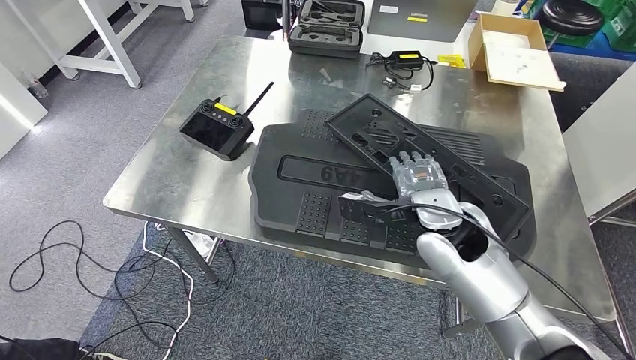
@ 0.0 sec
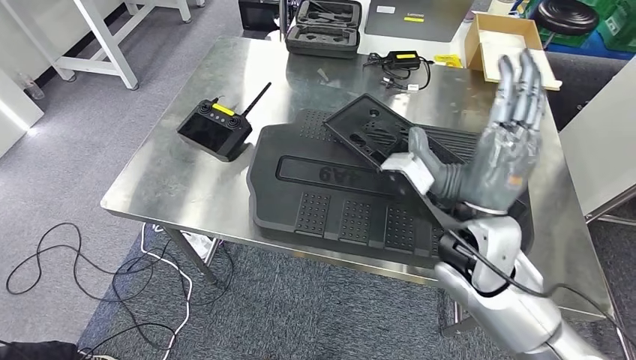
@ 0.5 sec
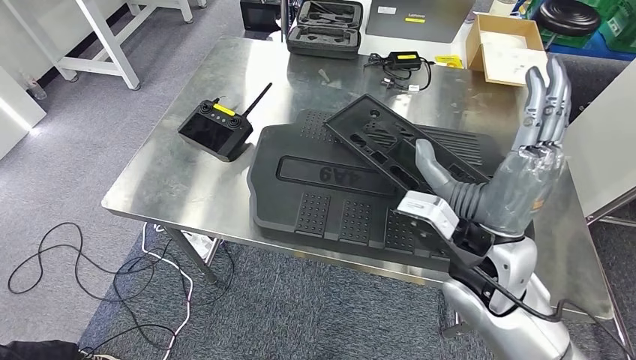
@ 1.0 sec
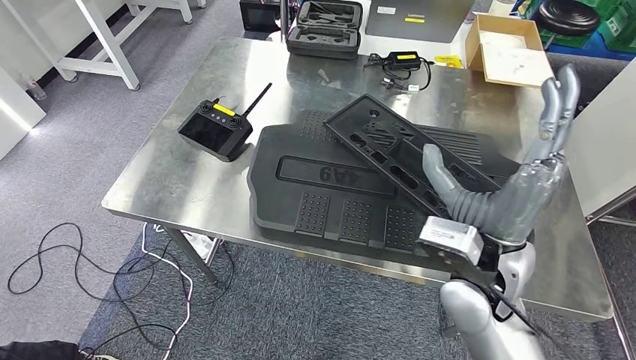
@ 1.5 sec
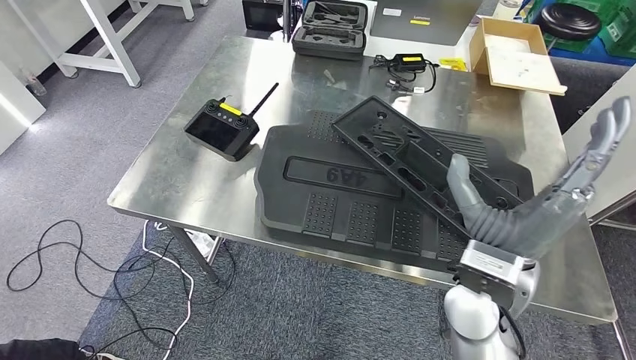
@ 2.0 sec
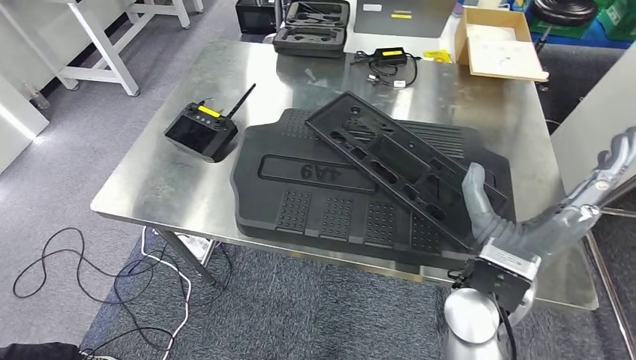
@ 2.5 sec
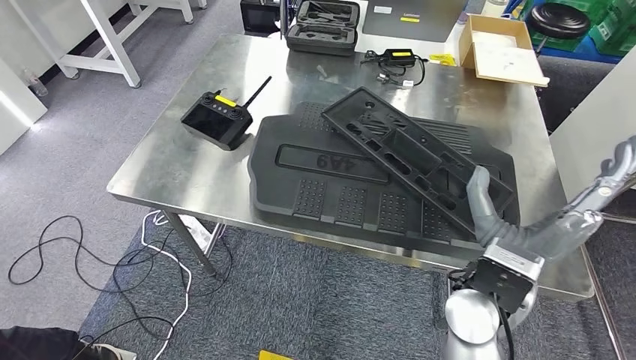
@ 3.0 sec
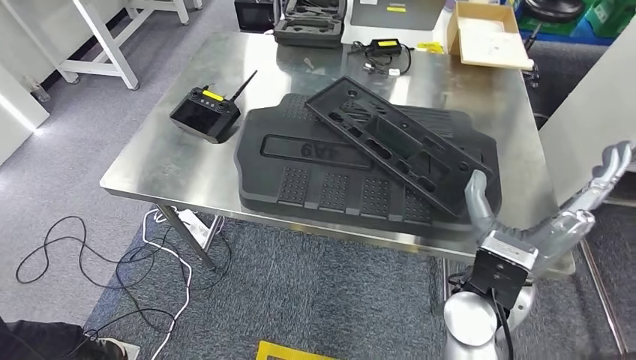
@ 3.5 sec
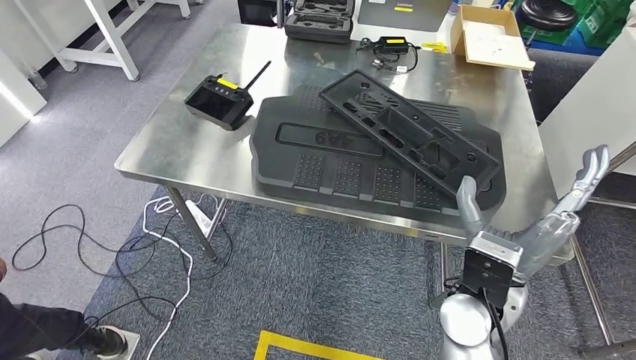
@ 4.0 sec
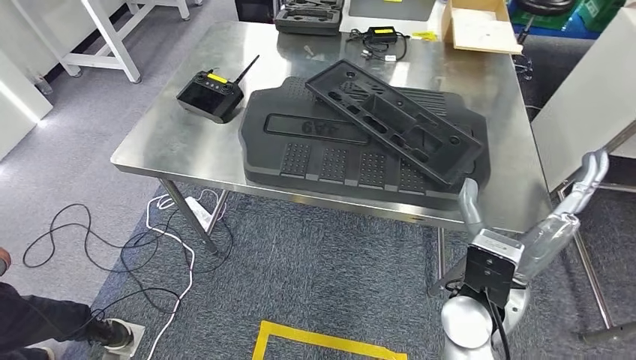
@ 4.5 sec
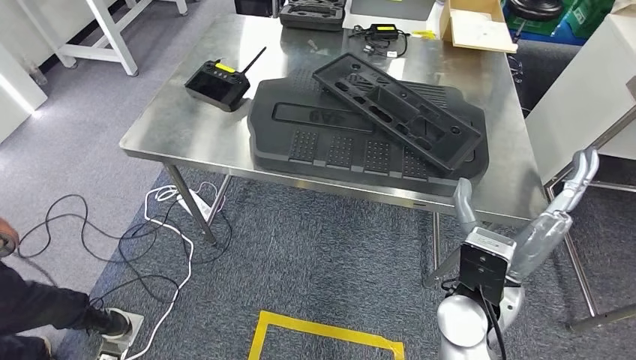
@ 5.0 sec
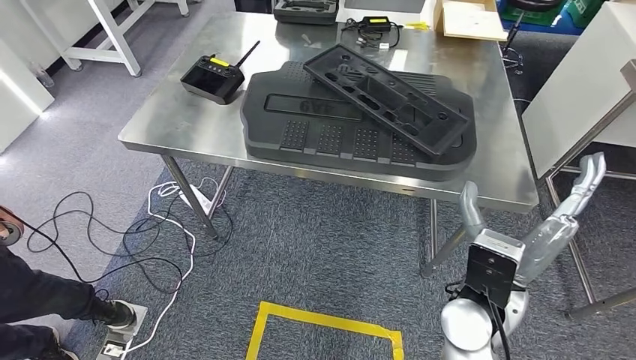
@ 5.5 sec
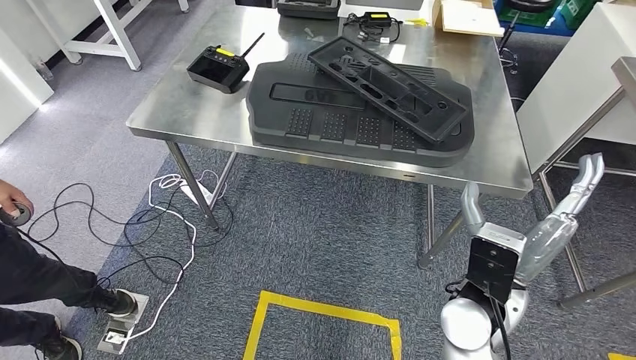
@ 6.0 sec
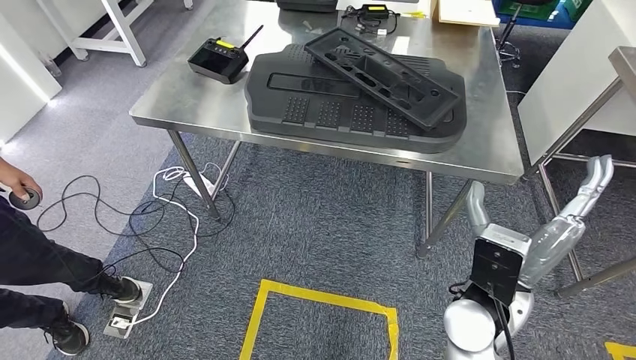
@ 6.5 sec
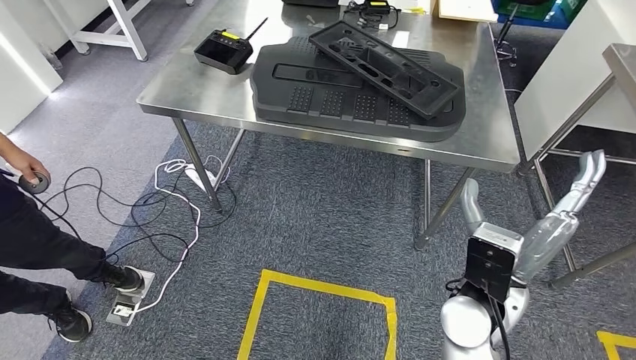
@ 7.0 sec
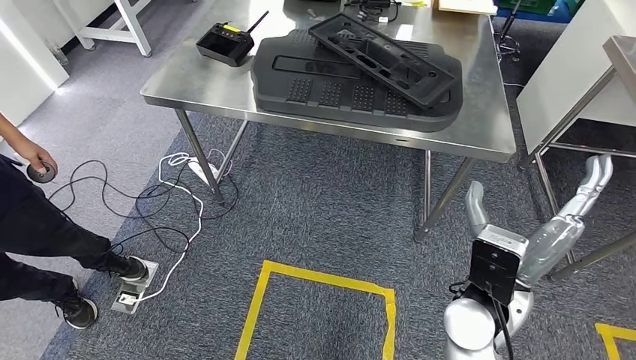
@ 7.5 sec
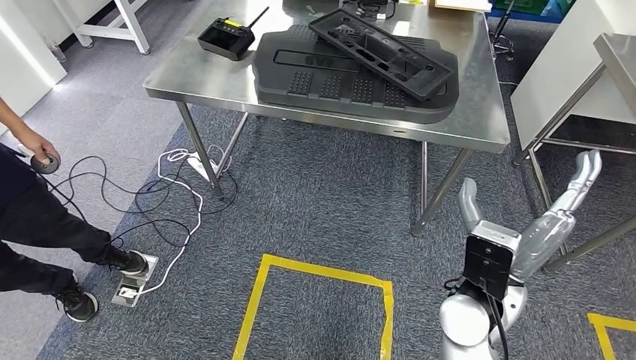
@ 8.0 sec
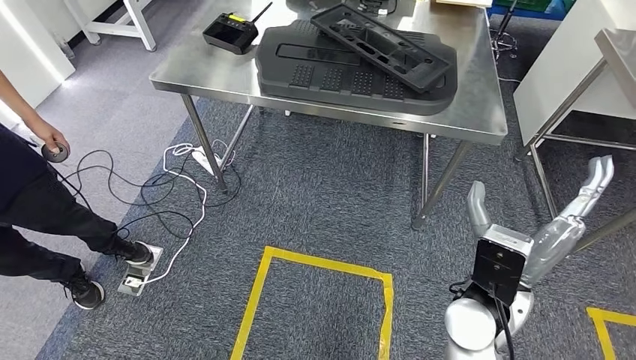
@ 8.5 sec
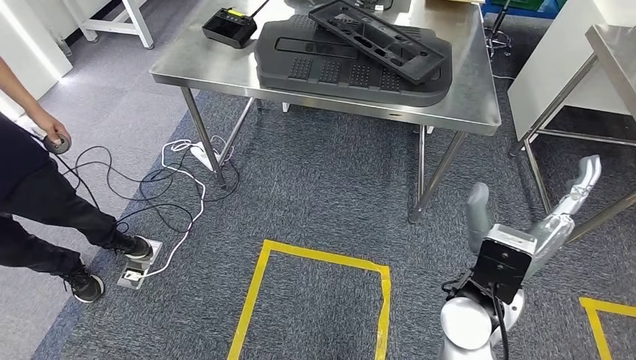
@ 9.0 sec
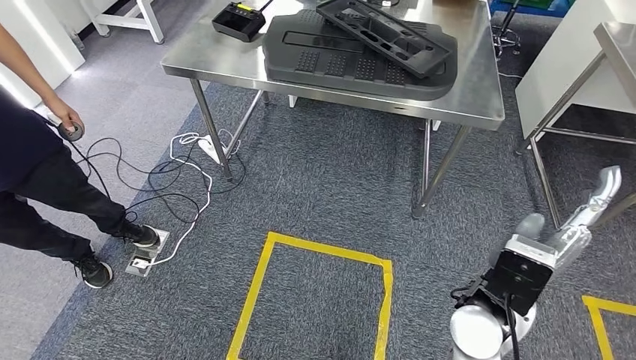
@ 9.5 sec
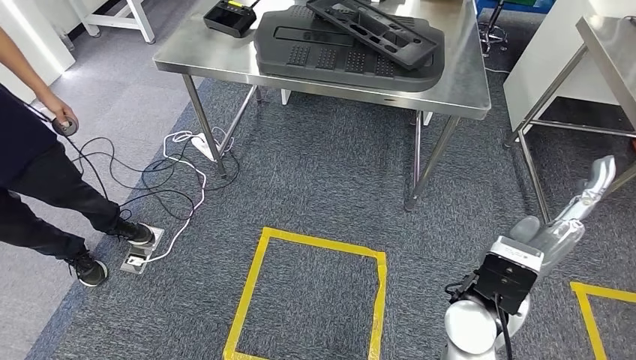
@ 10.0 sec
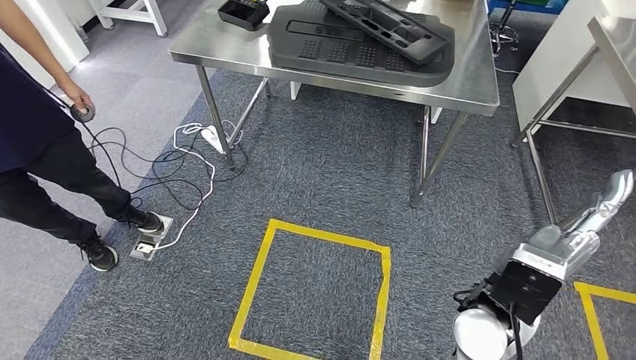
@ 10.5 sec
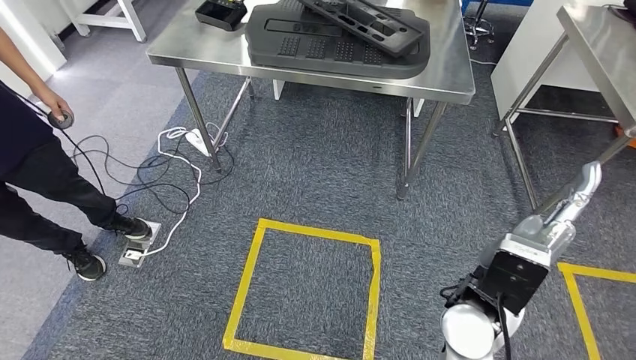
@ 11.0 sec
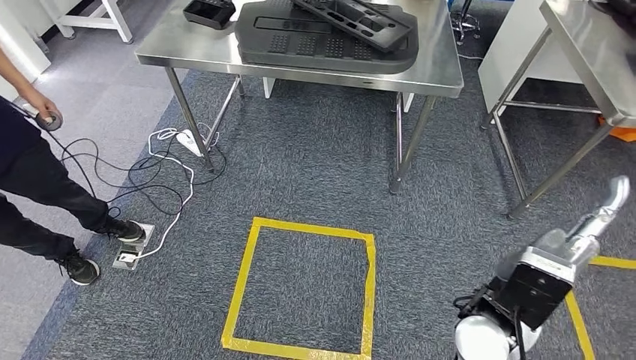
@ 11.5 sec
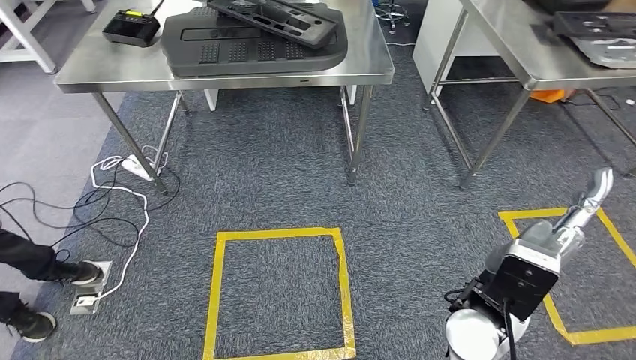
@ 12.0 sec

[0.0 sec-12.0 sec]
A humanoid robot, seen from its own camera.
Step, 0.0 sec to 6.5 sec: Insert the large material into the corresponding slot on the workbench.

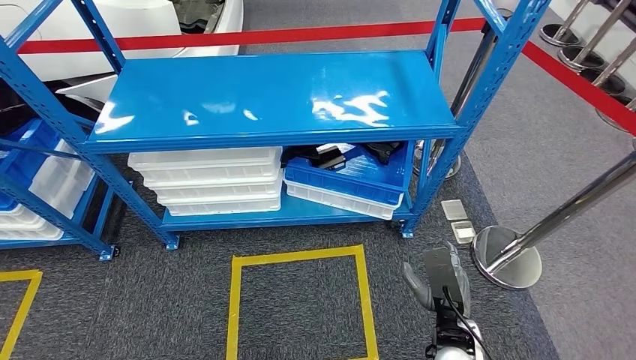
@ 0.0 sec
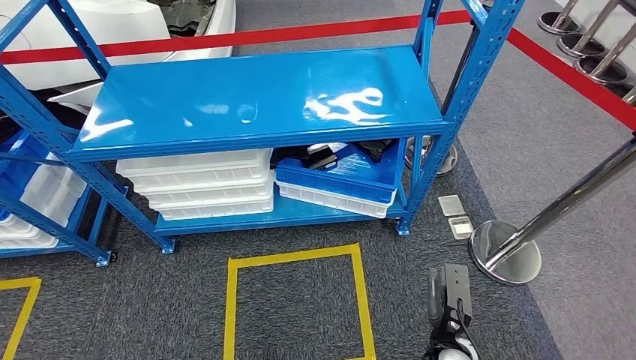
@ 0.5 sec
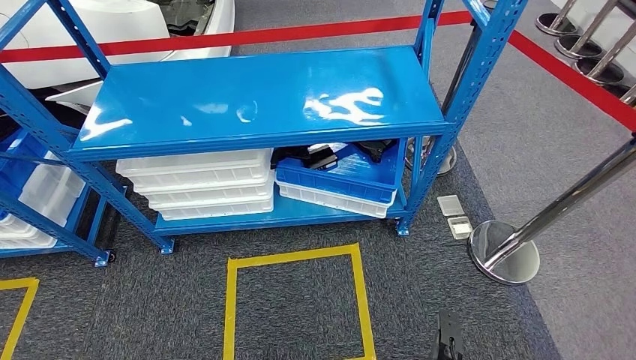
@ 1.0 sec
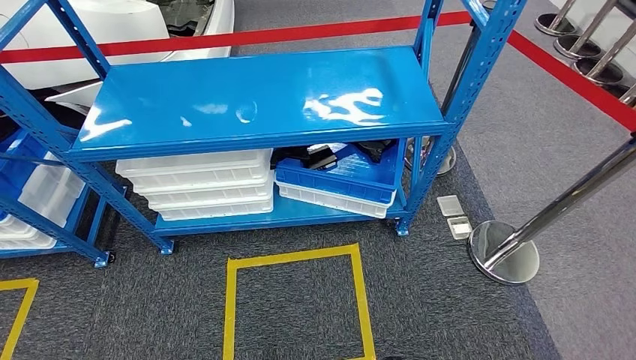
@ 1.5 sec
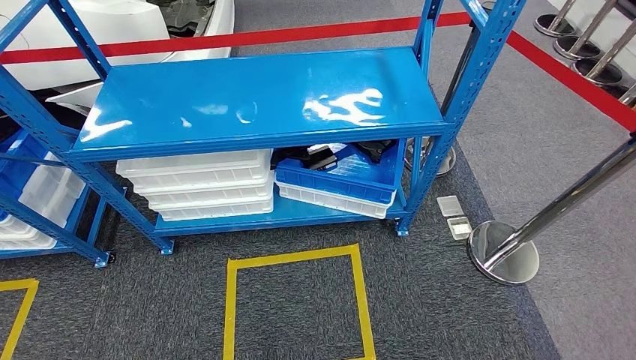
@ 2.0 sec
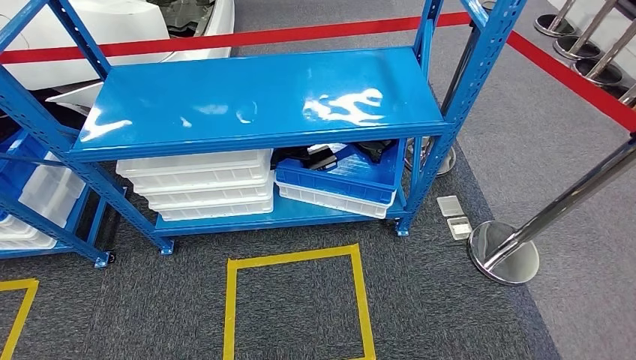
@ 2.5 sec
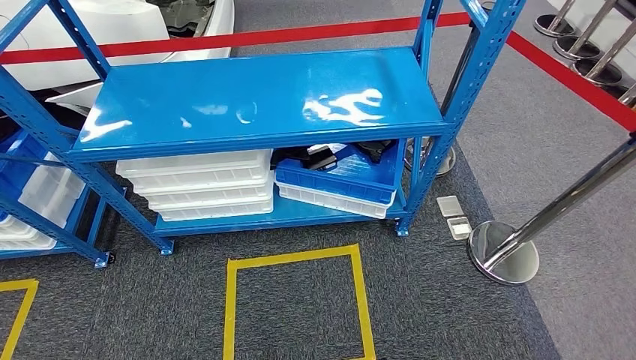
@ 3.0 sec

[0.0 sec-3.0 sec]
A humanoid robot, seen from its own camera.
Step, 0.0 sec to 3.0 sec: Move to the initial position of the shelf.
1.5 sec to 3.0 sec: The hands move only a little.
